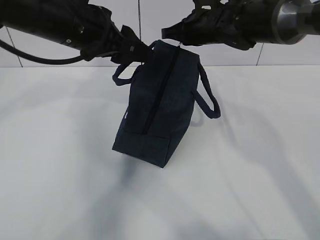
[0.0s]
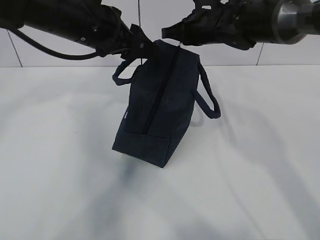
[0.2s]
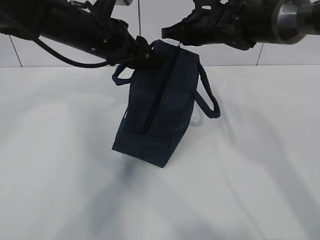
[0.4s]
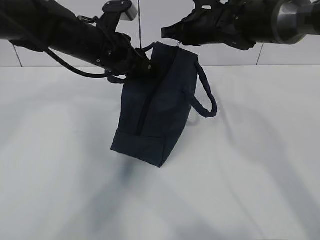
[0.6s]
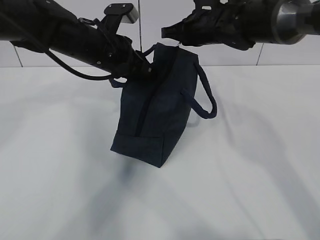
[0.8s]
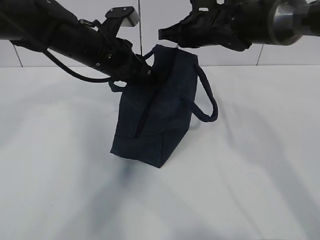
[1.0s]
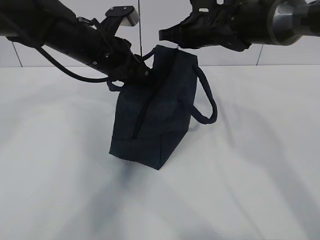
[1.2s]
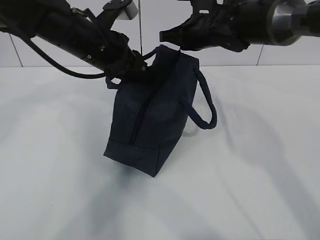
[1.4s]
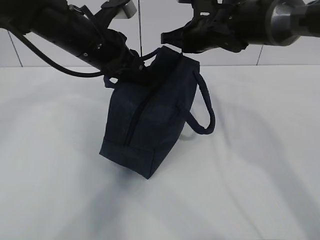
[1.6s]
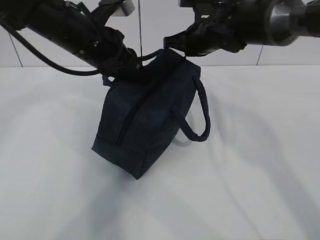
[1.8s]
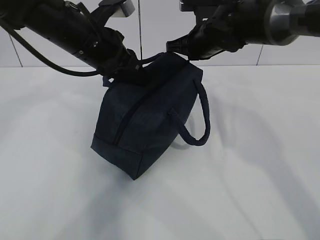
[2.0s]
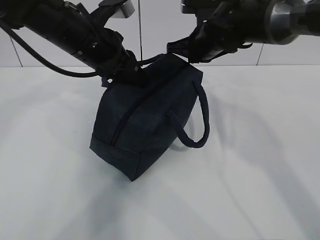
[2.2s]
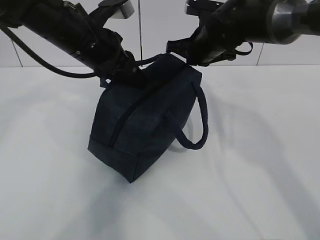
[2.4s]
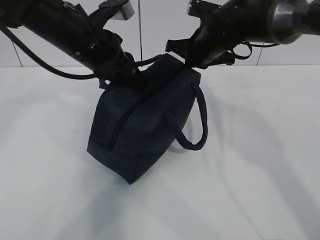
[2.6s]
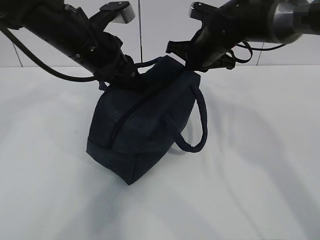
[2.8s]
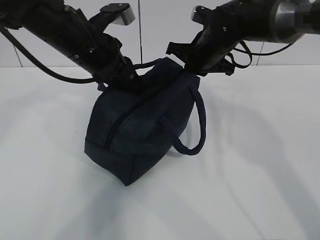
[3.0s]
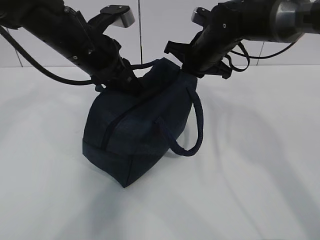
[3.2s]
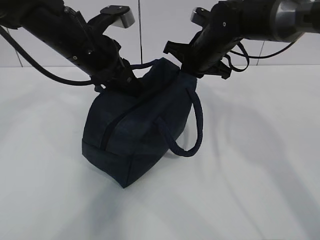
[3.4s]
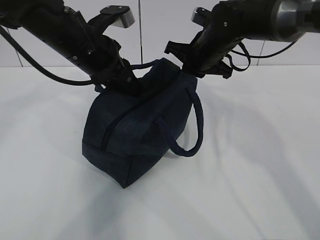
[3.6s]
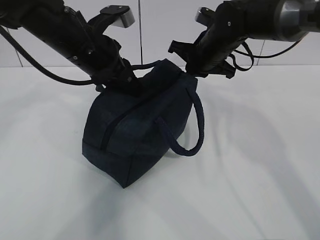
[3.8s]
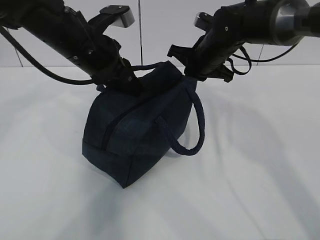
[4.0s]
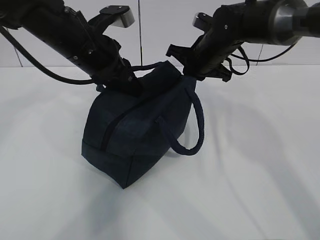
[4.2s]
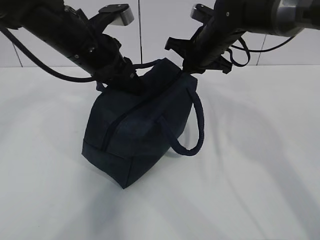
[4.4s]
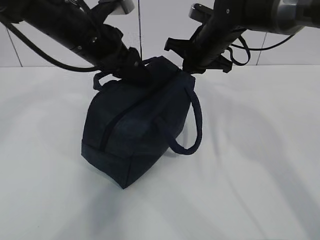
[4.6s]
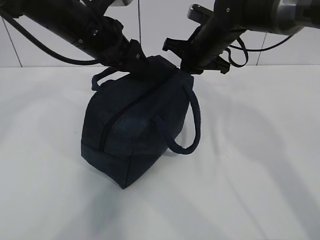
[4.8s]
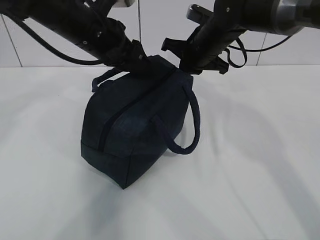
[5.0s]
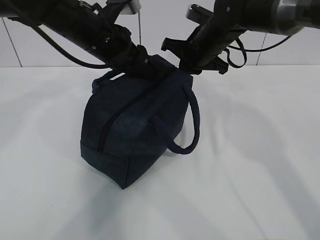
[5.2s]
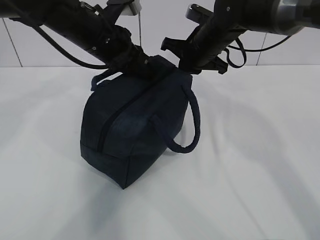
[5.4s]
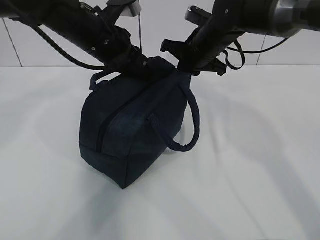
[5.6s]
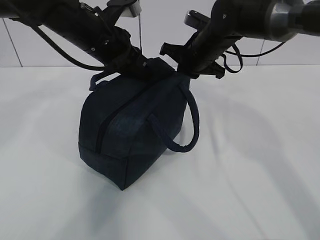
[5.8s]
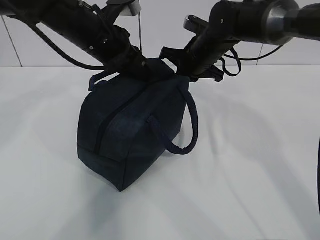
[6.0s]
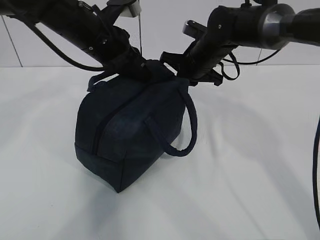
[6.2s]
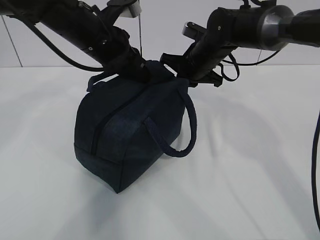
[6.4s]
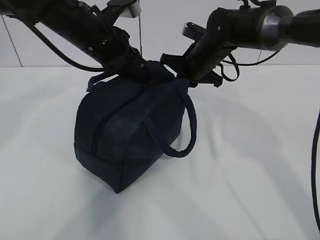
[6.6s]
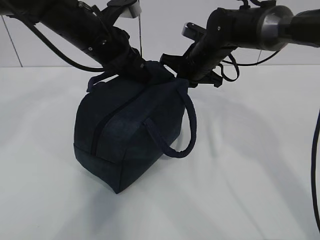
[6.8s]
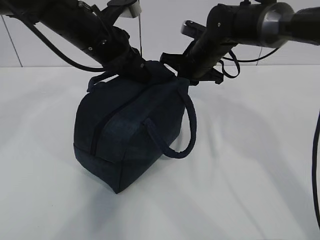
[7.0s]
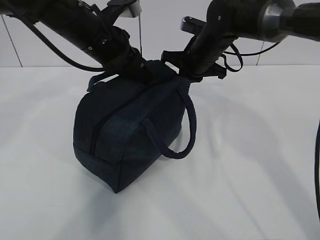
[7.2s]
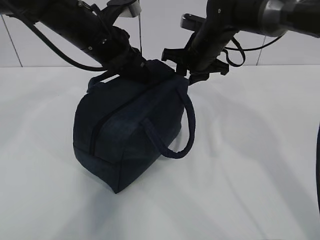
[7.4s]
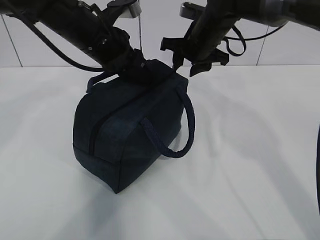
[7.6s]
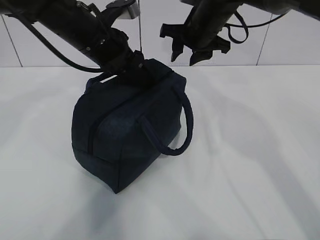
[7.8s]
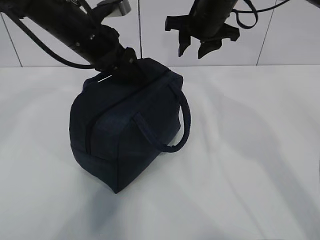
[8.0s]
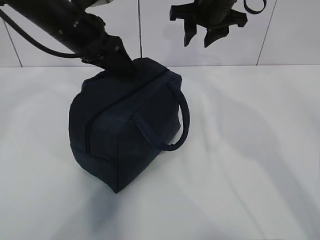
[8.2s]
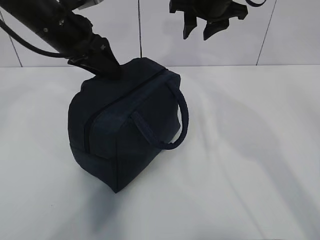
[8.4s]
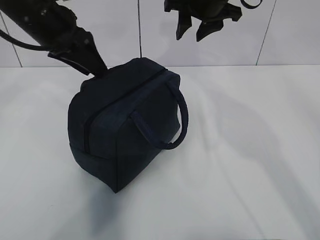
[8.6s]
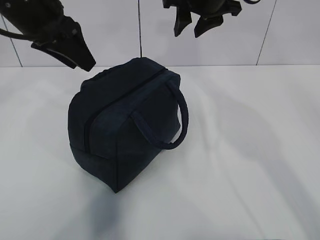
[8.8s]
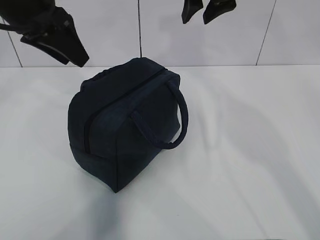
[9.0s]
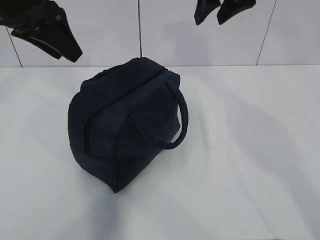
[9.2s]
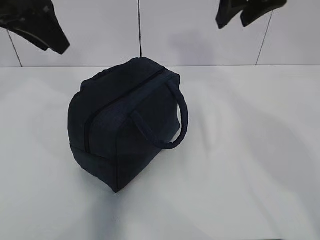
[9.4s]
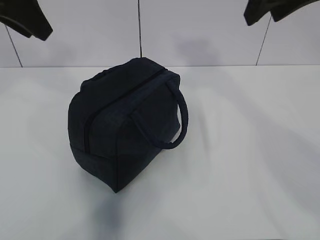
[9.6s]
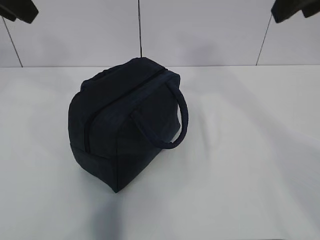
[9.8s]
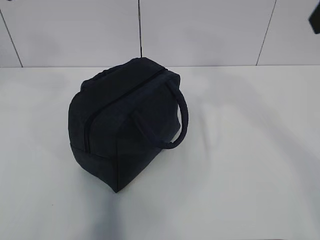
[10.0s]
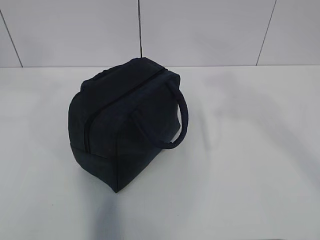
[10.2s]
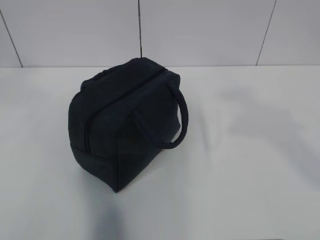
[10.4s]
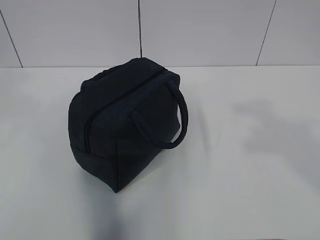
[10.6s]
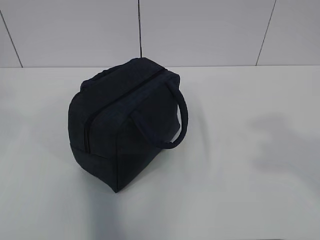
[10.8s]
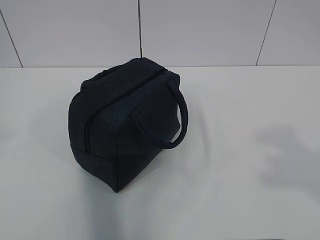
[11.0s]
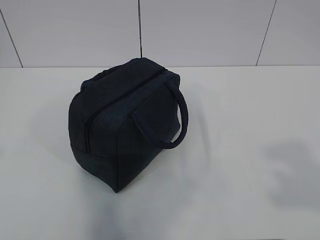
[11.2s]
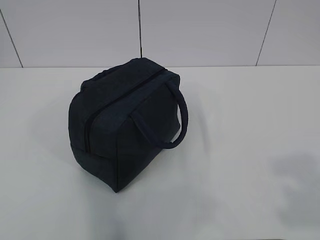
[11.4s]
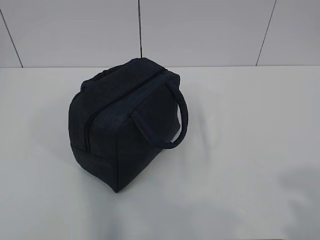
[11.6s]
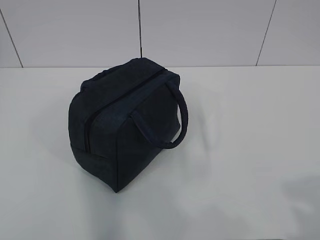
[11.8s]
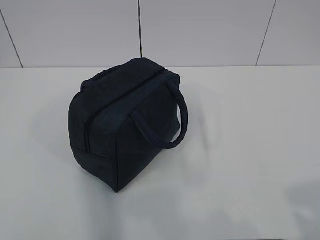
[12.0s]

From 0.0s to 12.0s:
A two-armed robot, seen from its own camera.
From 0.0s to 1.6s: The left gripper closes.
From 3.0s to 4.4s: The grippers make only small movements.
From 4.4s to 6.0s: The left gripper opens and closes again.
From 6.0s to 7.6s: The left gripper opens up, while the right gripper opens.
From 7.6s to 9.0s: The left gripper heads to the left and upward, covering roughly 10 cm, and opens up; the right gripper travels upward by approximately 15 cm.
From 9.0s to 10.4s: The right gripper shifts about 35 cm backward and to the right. The left gripper moves backward and upward, some 20 cm.
From 10.4s to 12.0s: The right gripper heads downward and backward, covering about 20 cm. The left gripper heads backward and downward, covering about 25 cm.
